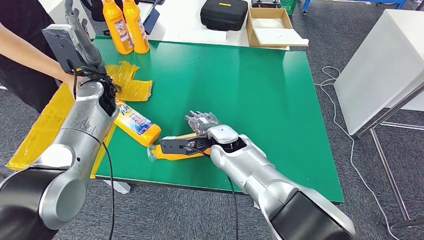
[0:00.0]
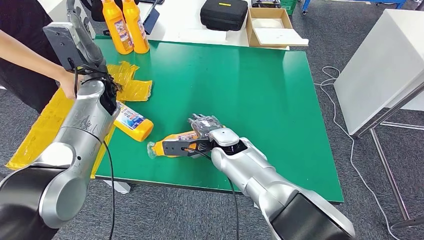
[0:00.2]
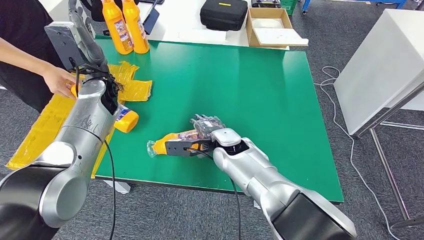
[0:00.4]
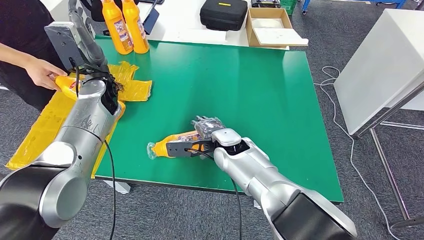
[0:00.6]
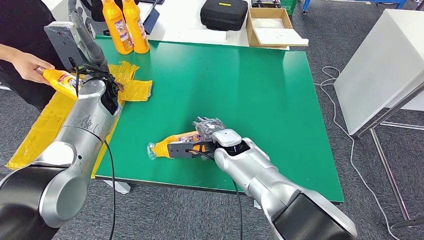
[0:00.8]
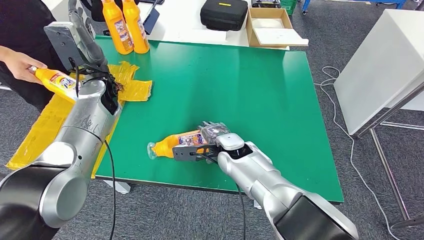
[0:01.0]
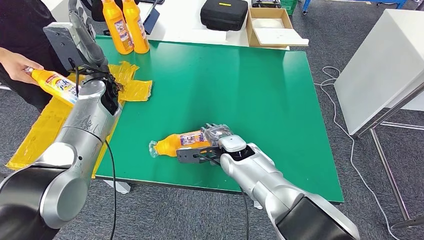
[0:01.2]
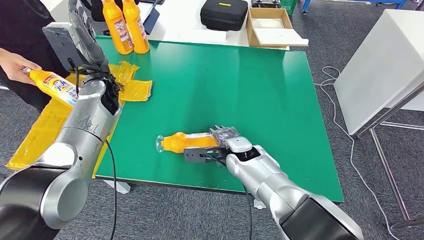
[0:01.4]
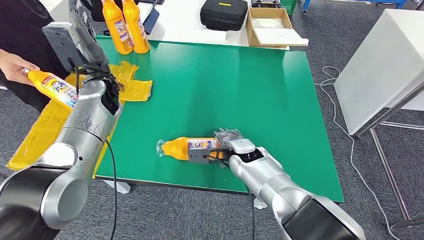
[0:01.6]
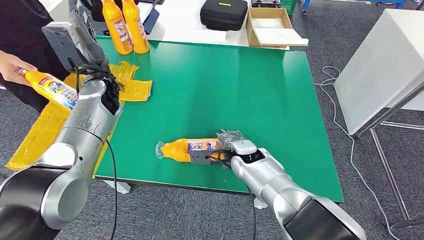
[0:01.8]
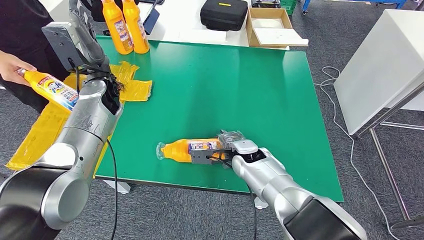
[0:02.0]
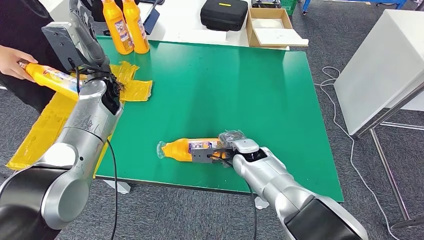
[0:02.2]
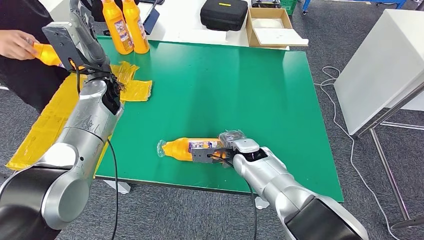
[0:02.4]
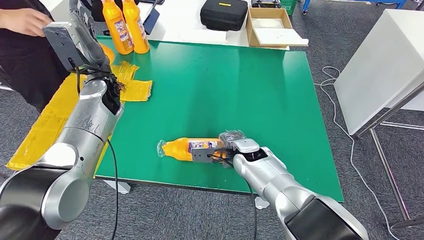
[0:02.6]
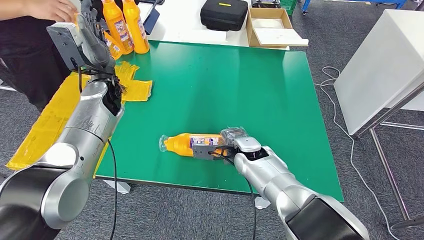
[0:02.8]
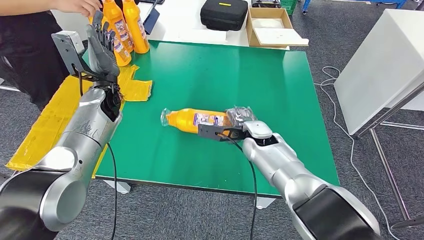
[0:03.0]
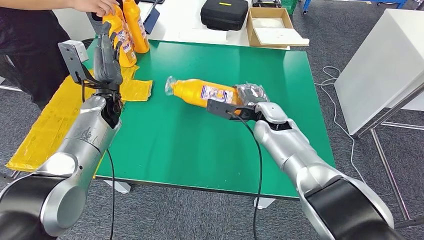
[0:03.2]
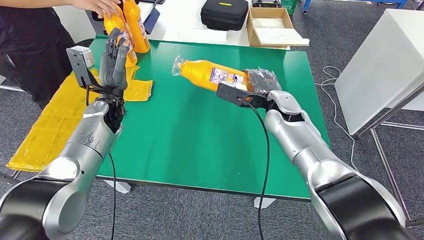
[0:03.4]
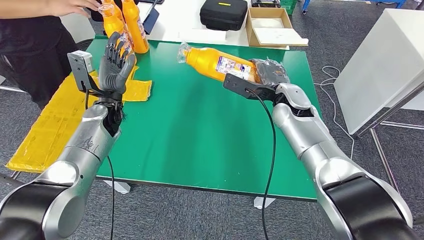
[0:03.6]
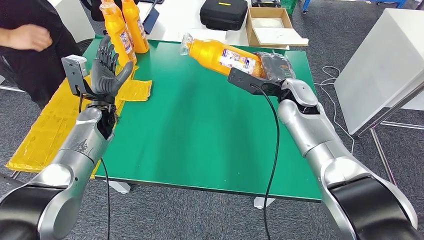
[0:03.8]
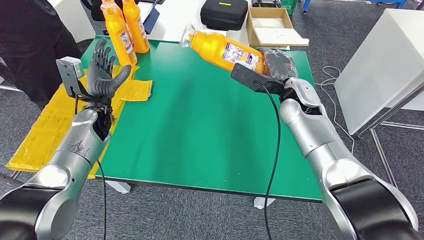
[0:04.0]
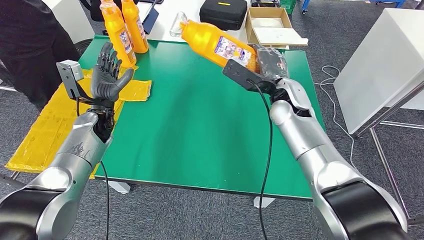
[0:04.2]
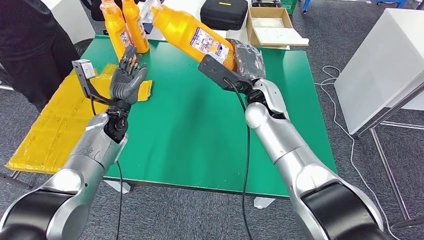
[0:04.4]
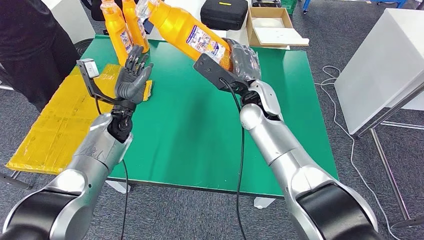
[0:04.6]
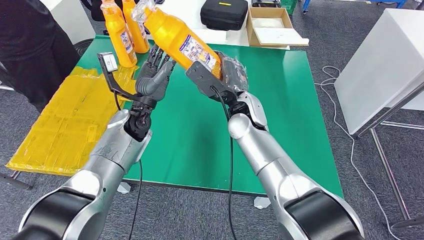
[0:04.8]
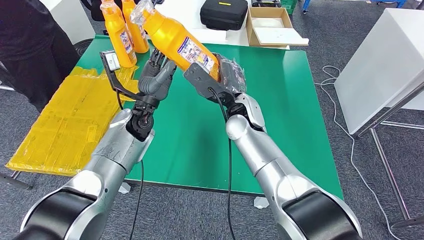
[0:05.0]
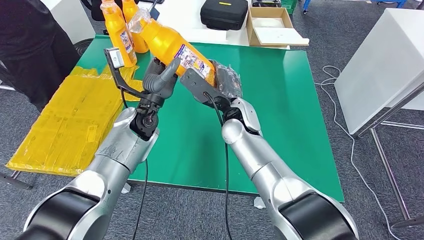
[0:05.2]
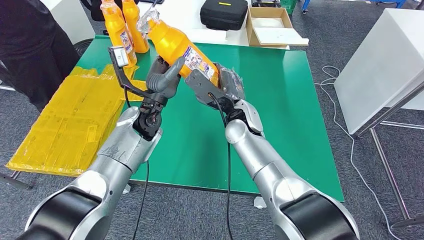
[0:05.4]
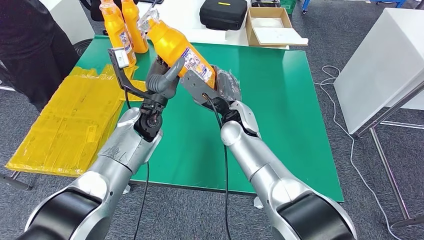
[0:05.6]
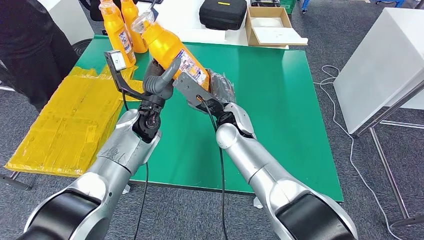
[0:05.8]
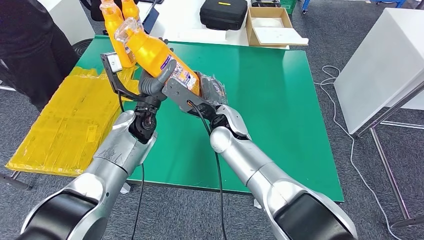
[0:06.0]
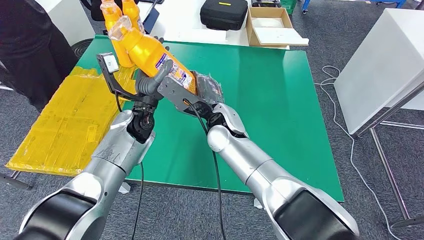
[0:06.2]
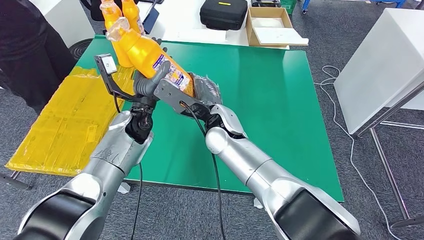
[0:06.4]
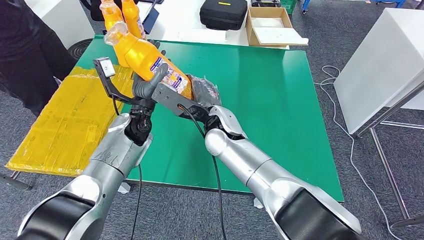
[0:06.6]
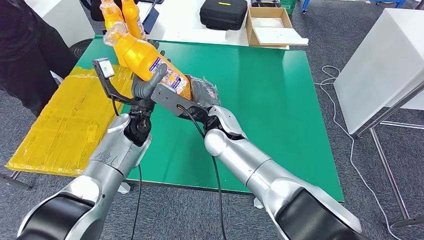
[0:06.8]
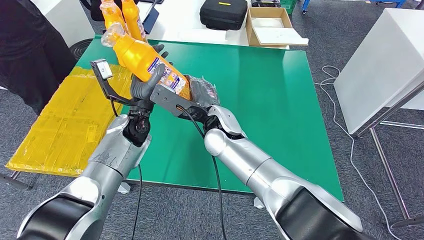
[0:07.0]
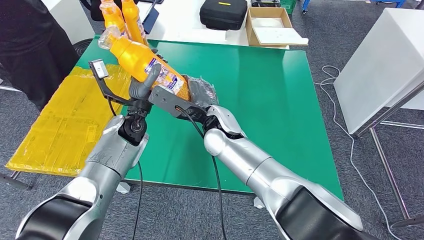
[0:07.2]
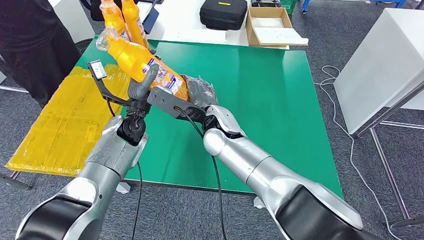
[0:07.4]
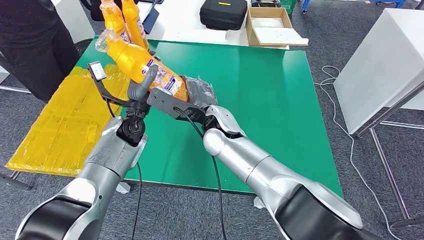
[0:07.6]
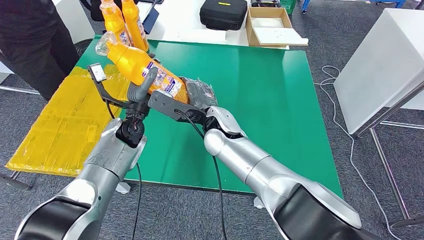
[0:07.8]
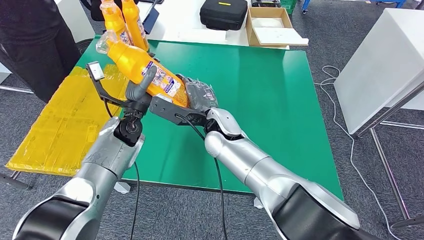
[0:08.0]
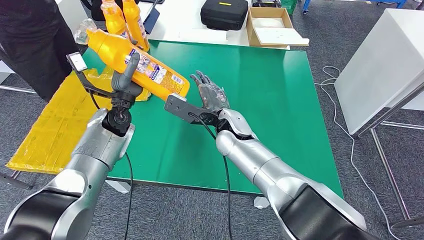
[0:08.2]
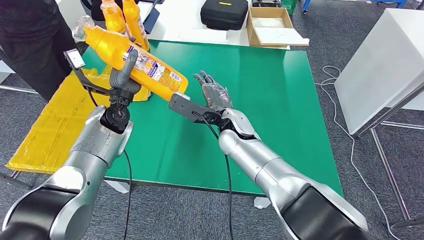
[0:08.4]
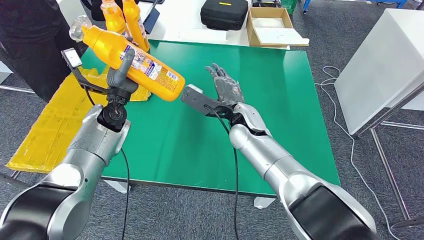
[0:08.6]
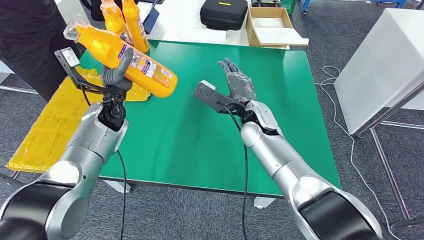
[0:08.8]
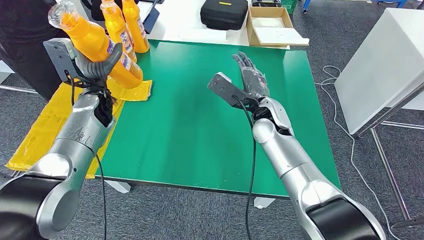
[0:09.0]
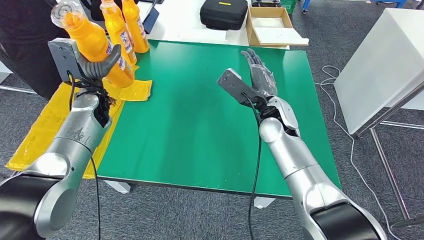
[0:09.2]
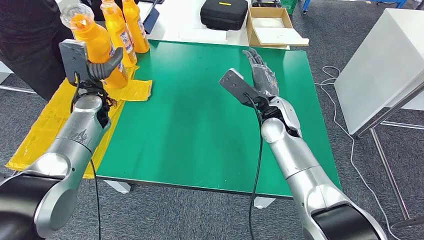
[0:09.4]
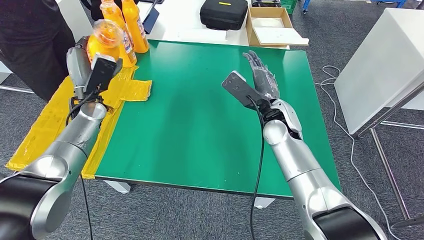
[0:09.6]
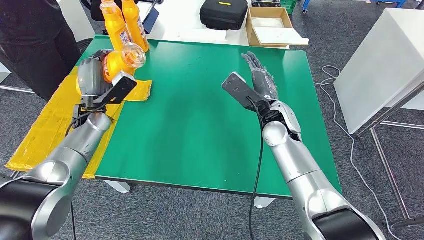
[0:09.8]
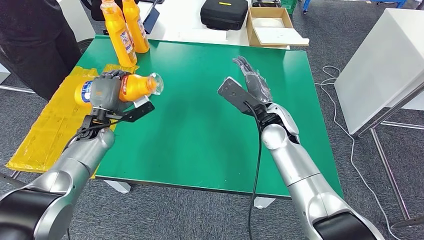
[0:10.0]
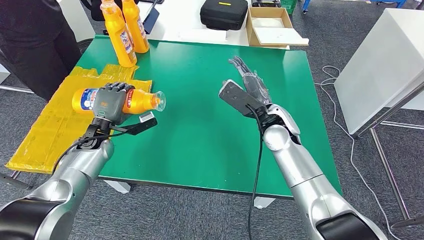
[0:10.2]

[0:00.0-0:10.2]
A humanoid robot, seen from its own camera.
Step, 0:00.0 to 0:04.2: Pick up the fast-moving consumer goods bottle from the table.
0:00.0 to 0:01.4: The right hand moves about 5 cm.

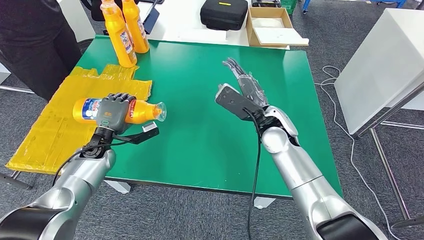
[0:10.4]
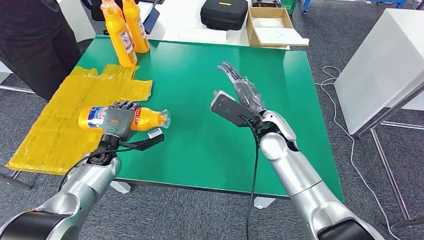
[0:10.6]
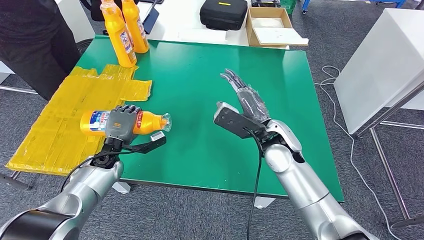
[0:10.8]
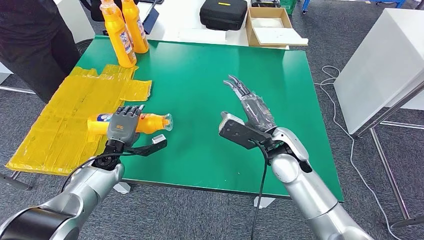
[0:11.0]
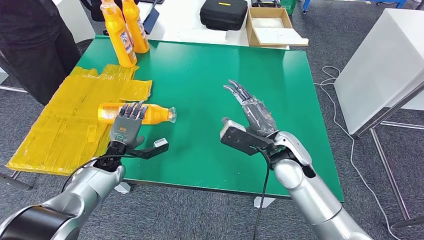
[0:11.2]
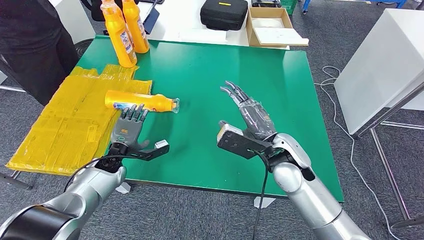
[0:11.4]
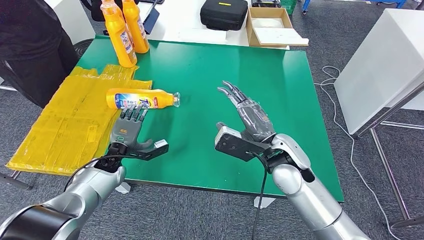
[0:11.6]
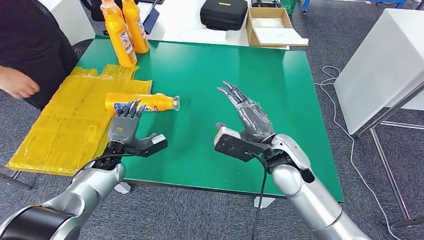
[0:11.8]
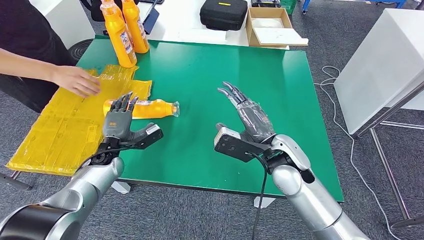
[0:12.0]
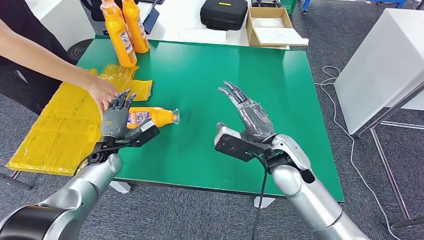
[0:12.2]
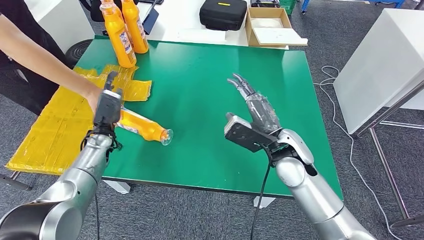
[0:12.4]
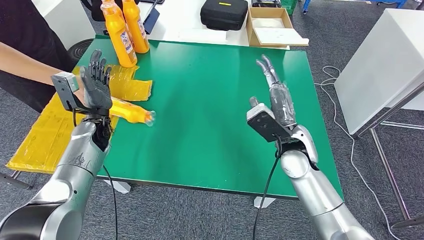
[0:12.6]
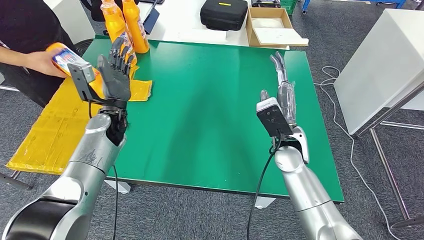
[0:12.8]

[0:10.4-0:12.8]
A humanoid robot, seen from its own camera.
Step, 0:10.4 to 0:12.8: Flip the fast-moving consumer goods bottle to the front side.
0:10.4 to 0:11.6: The right hand is displaced backward by about 5 cm. The left hand shifts by some 5 cm.
